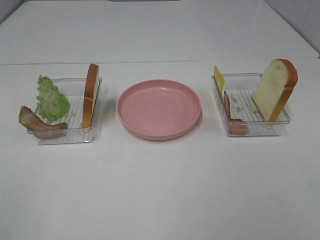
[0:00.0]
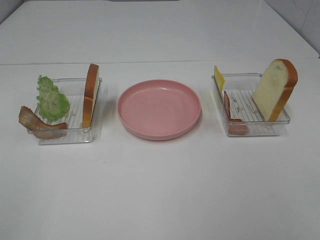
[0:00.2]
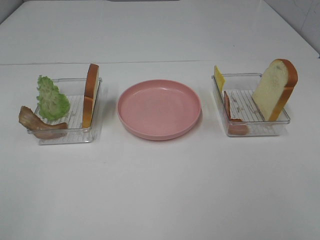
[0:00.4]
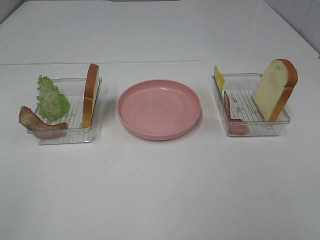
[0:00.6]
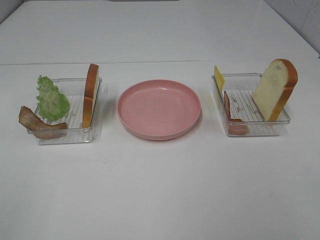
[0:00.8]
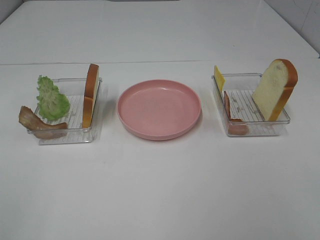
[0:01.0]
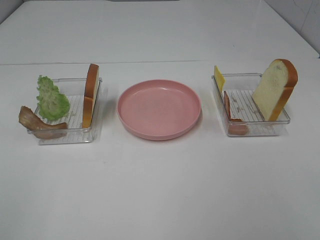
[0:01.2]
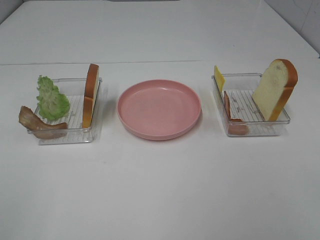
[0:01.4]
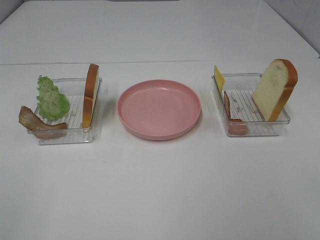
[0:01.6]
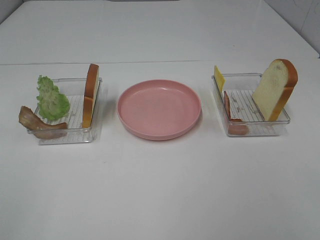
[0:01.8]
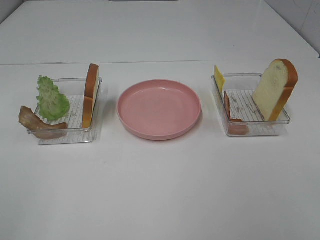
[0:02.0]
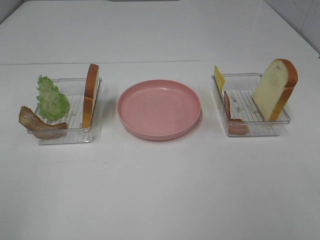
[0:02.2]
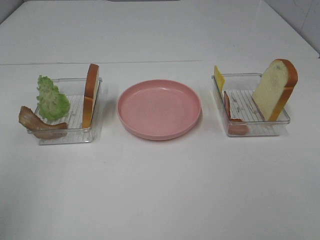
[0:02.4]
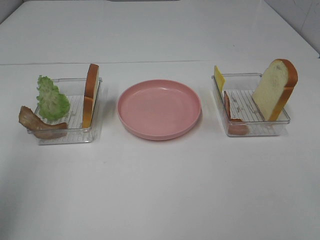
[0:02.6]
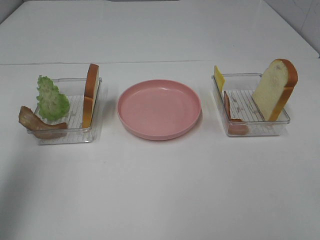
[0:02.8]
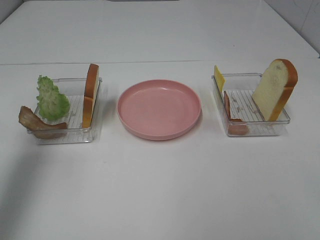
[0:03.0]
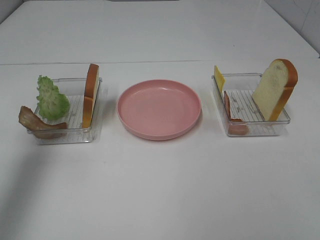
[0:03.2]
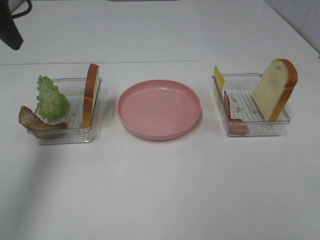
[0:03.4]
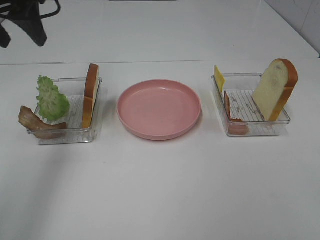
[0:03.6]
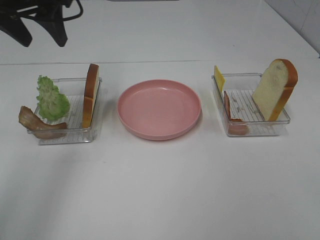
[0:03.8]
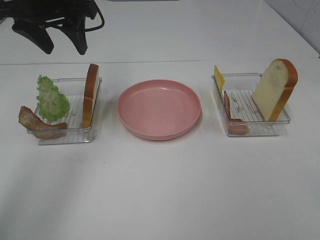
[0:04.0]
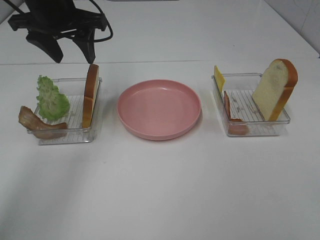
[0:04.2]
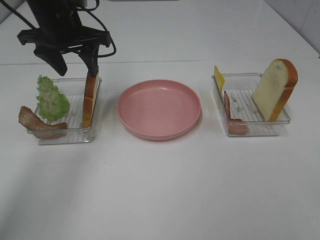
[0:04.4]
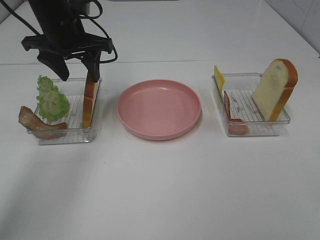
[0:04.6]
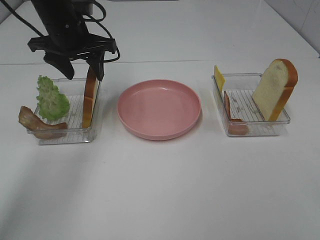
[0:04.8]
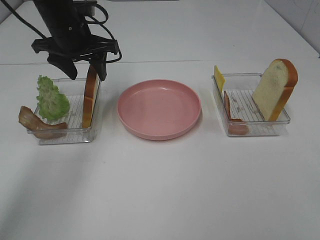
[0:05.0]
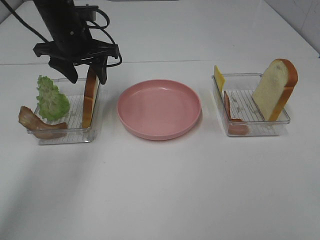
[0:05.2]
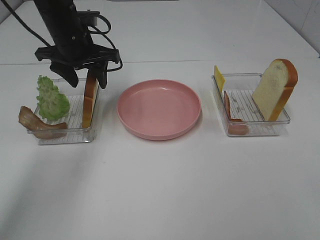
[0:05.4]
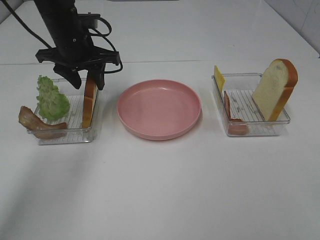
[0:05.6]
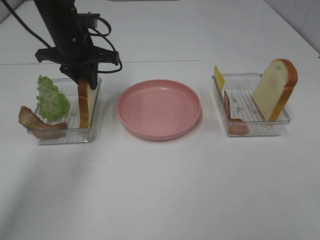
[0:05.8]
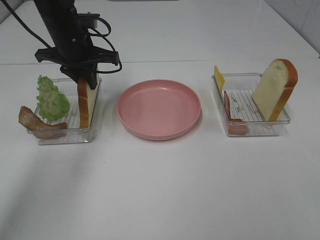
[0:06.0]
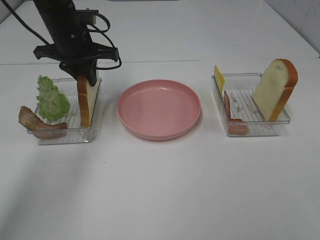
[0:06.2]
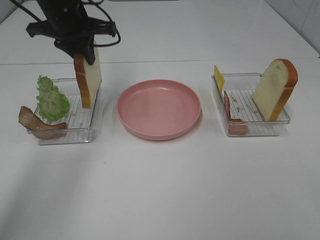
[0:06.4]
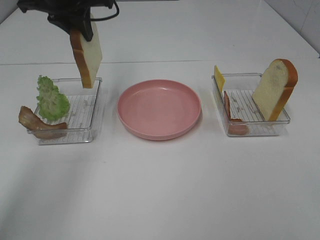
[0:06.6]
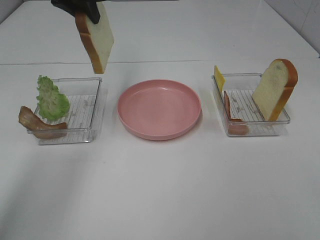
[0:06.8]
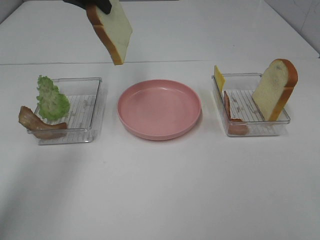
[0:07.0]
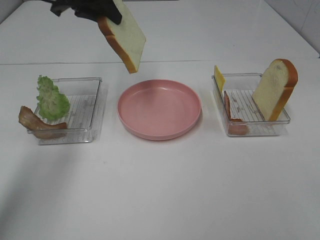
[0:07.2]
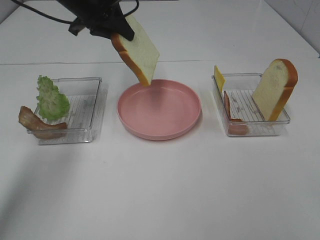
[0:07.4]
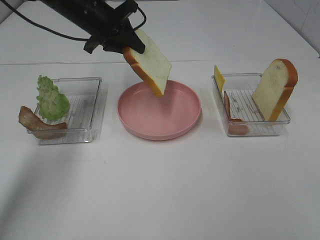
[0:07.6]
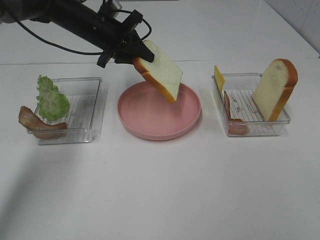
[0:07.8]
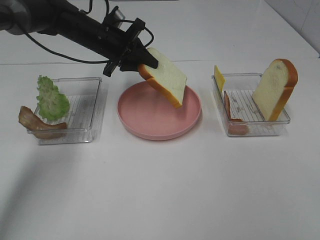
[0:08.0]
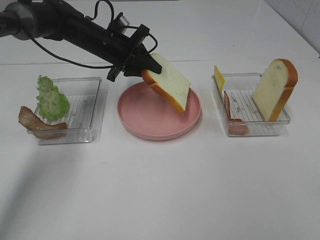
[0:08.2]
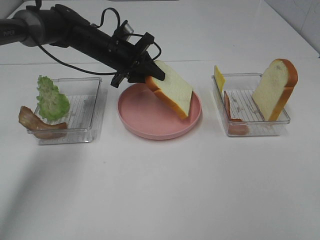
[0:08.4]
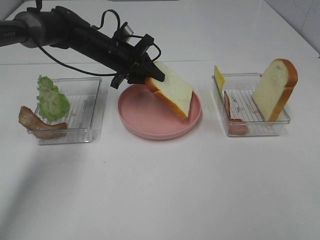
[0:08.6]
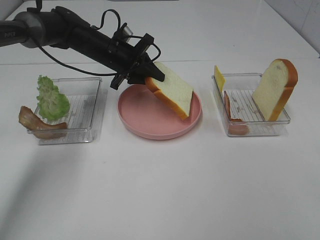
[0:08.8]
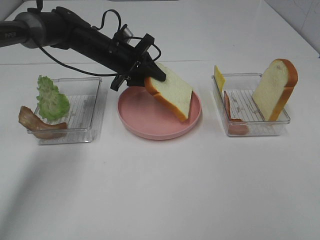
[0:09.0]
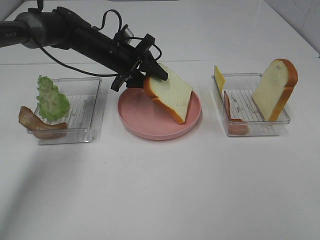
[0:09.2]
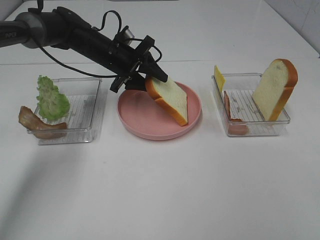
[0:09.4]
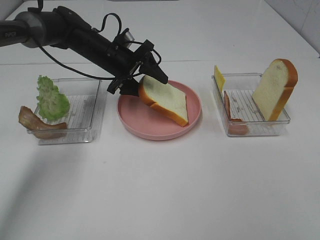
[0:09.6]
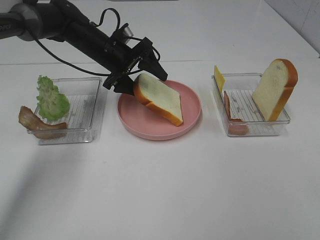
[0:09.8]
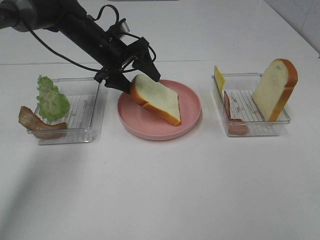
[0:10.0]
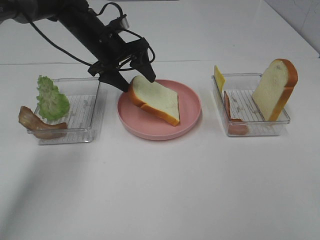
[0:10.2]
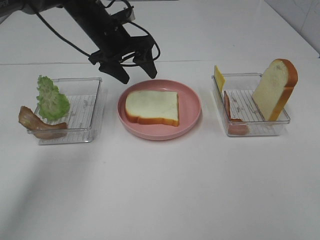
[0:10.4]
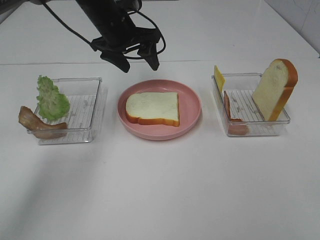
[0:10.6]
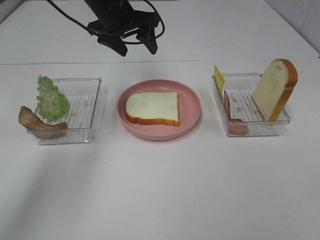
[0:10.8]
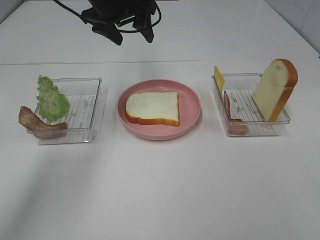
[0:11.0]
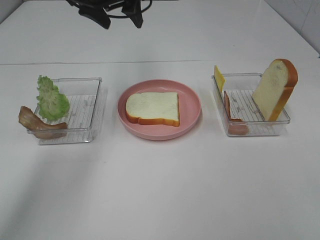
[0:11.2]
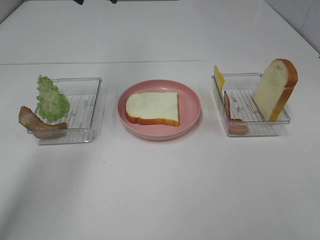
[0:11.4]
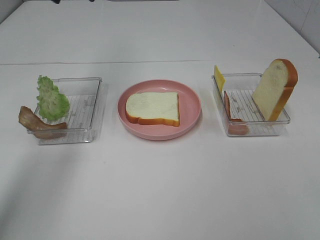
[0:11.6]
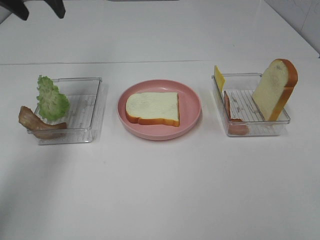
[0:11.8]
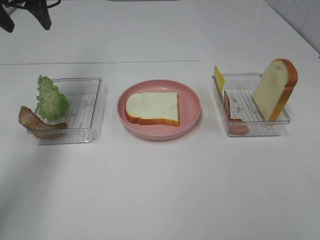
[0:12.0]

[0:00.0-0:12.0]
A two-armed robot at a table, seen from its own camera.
Task of the whole recording: Make sandwiches.
Step, 0:00.0 to 0:06.2: Left hand:grab the bread slice.
Step, 0:06.4 to 0:10.4: Left hand:place the bread slice on the plate.
0:00.0 to 0:01.6: Both grippers stay put.
0:01.6 to 0:03.0: The left gripper shifts about 25 cm forward.
0:03.0 to 0:04.4: The left gripper moves forward, to the right and downward, approximately 25 cm.
0:04.4 to 0:06.0: The left gripper shifts by some 5 cm, and closes.
0:06.0 to 0:07.6: The left gripper goes upward and returns, about 15 cm each way.
0:07.6 to 0:09.0: The left gripper shifts about 10 cm downward.
0:09.0 to 0:10.4: The left gripper moves upward, some 5 cm, and opens.
0:10.4 to 0:12.0: The left gripper moves to the left and upward, some 20 cm.

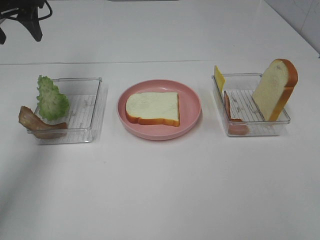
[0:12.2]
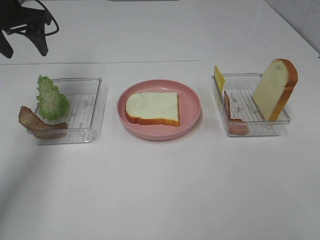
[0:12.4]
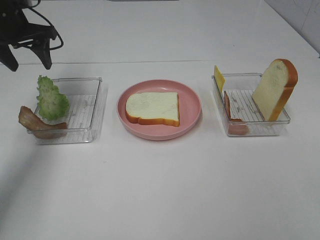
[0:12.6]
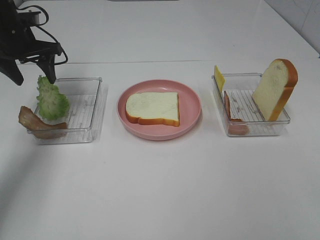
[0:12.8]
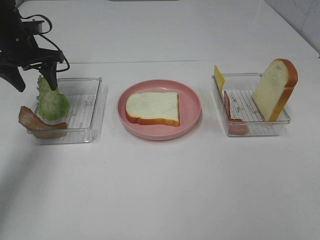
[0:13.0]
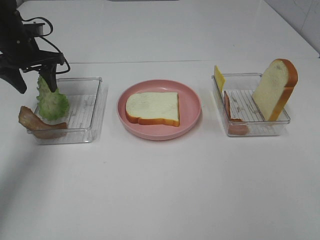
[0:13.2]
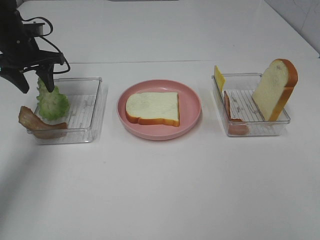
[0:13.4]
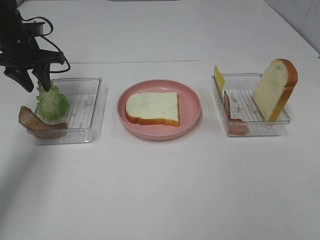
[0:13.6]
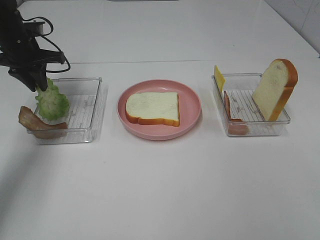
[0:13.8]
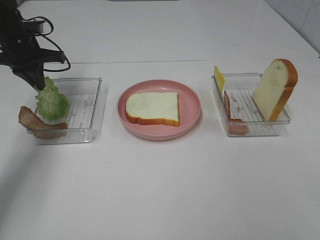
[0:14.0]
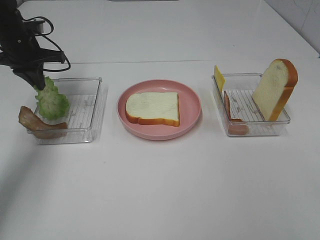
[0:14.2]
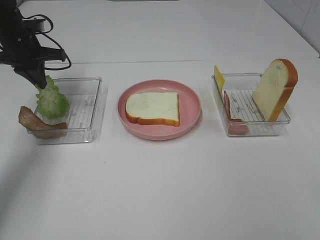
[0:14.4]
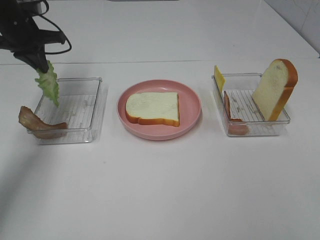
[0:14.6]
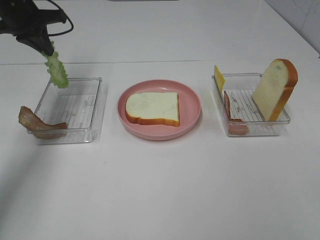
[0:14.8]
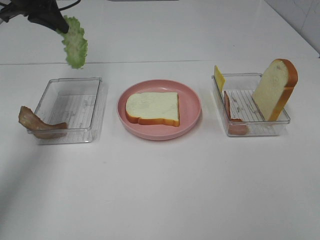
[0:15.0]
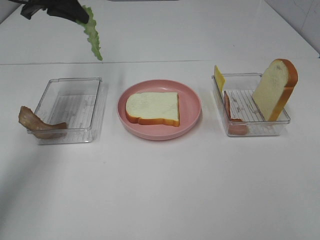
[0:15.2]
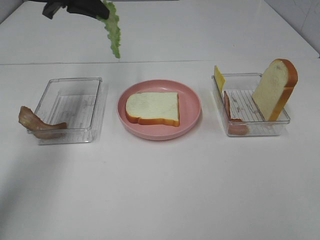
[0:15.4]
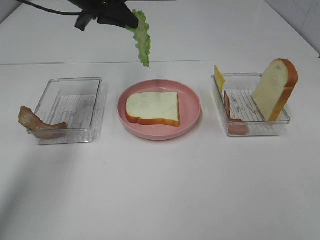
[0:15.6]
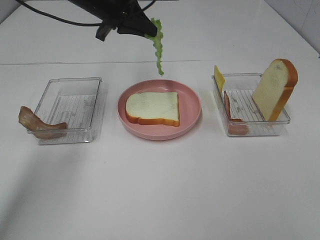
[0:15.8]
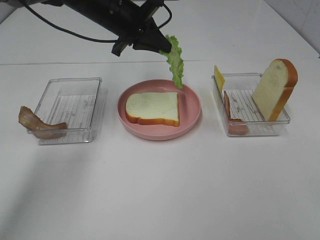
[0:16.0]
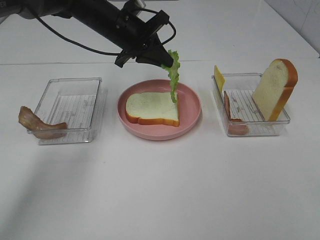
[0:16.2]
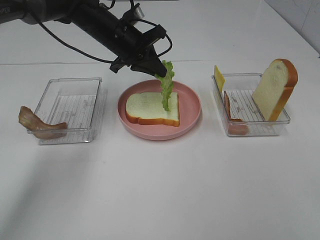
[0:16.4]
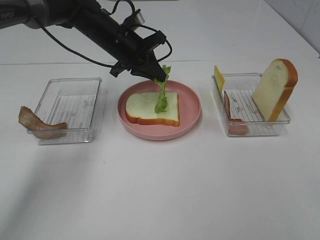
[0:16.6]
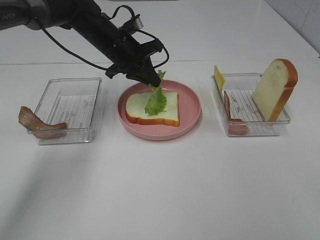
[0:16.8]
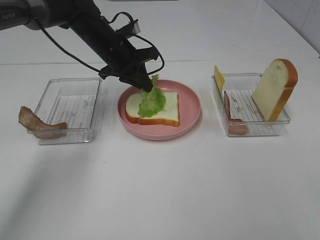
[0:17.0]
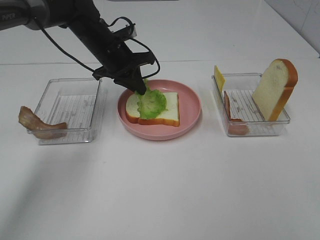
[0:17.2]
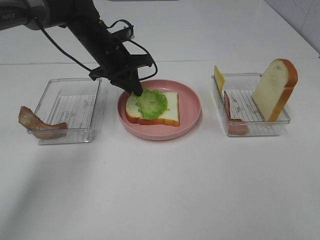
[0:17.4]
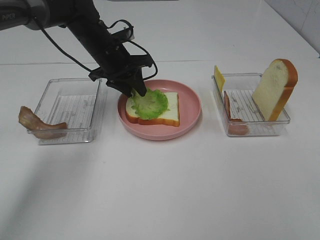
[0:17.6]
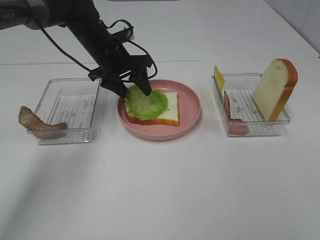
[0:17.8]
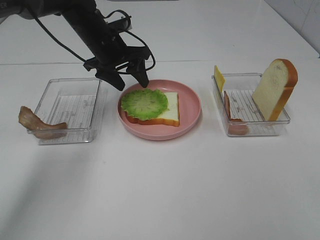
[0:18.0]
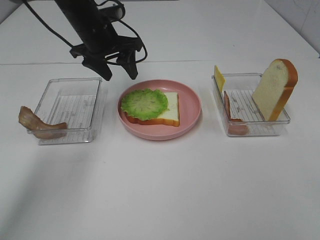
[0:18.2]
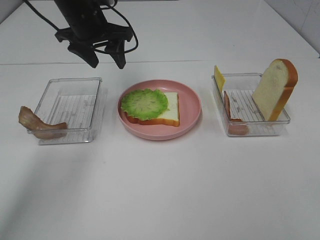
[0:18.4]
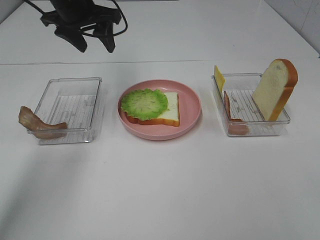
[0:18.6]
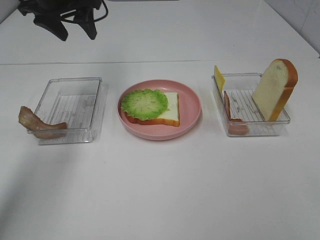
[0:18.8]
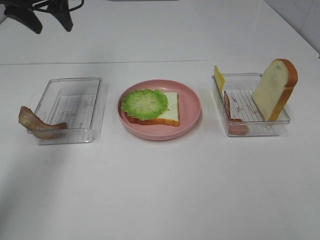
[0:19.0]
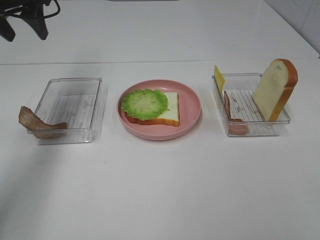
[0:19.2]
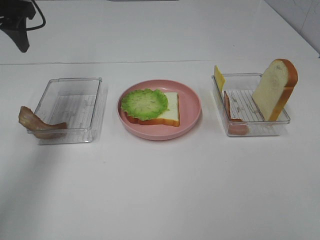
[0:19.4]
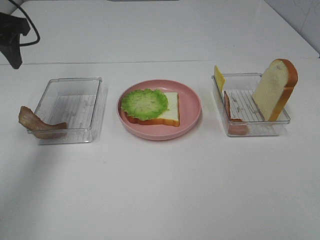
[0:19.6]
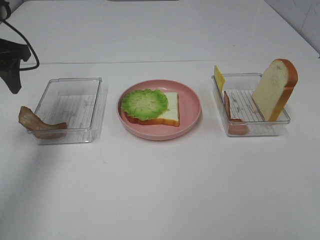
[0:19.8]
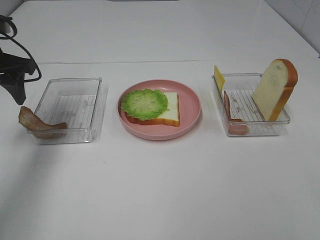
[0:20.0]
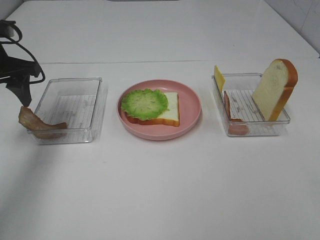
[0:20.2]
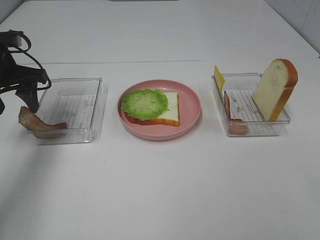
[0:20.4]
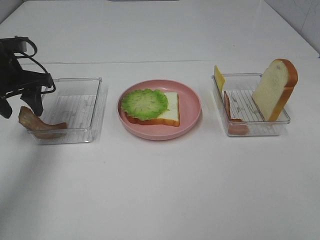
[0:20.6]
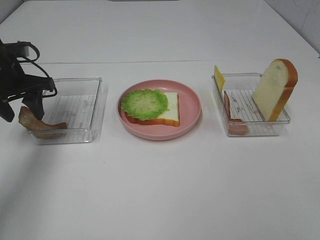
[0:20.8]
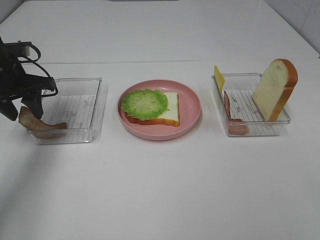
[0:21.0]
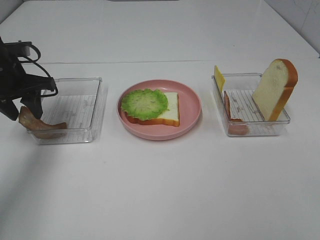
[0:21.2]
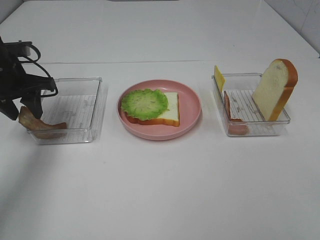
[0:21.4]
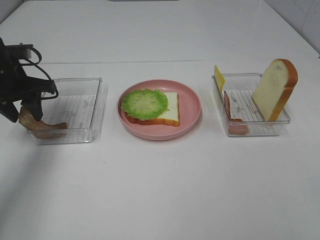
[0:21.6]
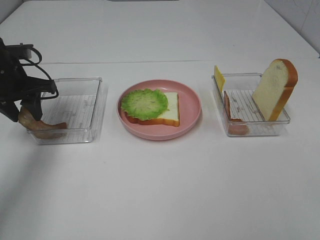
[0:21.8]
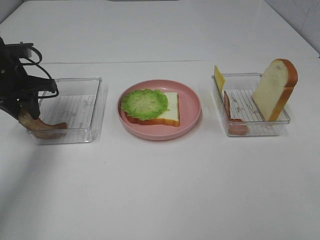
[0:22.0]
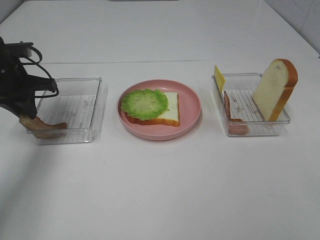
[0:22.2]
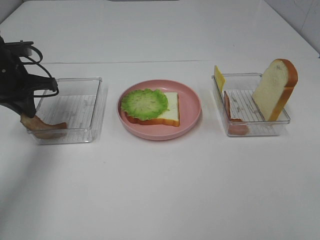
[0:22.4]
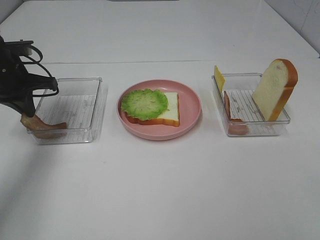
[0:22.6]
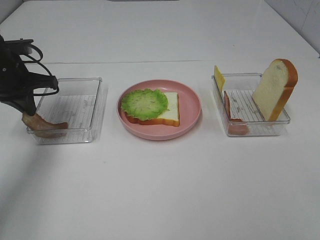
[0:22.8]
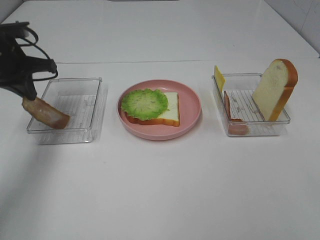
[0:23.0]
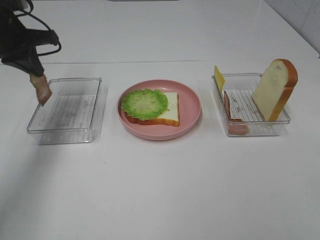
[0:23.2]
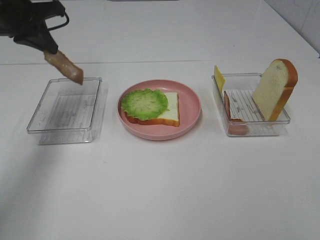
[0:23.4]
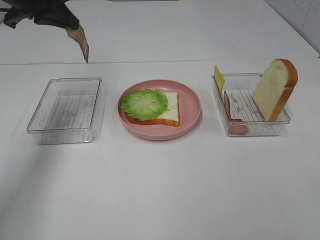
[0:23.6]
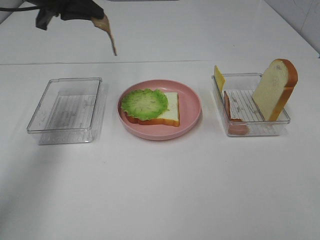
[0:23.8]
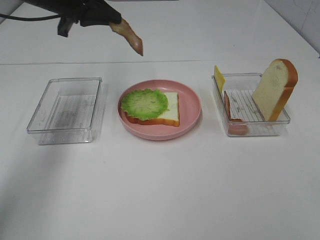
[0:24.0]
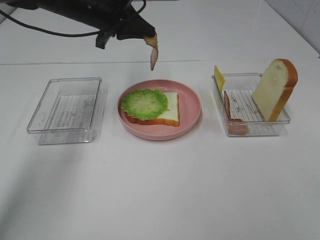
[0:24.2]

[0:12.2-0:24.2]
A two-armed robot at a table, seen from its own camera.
Task of the whole recording: Make sandwiches.
Step, 0:14.0 to 0:18.0: Left hand:place the lettuce slice on the bread slice.
Step, 0:18.2 to 0:22.4: Left hand:grab the bacon.
0:12.2 to 0:13.8: The left gripper heads downward, covering approximately 10 cm, and closes its fingers.
0:13.8 to 0:15.2: The left gripper is displaced upward and to the right by some 15 cm.
0:15.2 to 0:16.6: The left gripper heads to the right and downward, covering some 20 cm.
0:16.6 to 0:18.2: The left gripper ends up roughly 5 cm from where it was, and opens up.
0:18.2 to 0:19.8: The left gripper heads to the left and backward, covering about 20 cm.
0:19.8 to 0:21.2: The left gripper goes approximately 10 cm downward.
0:21.2 to 0:22.6: The left gripper closes up.
0:22.6 to 0:24.2: The left gripper goes roughly 20 cm to the right, forward and upward.
